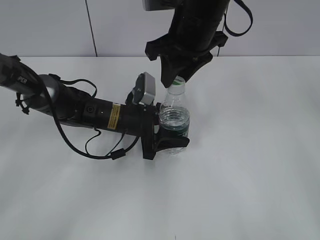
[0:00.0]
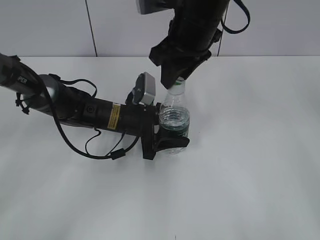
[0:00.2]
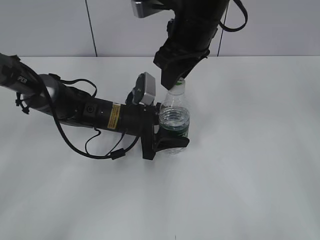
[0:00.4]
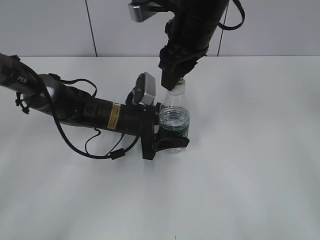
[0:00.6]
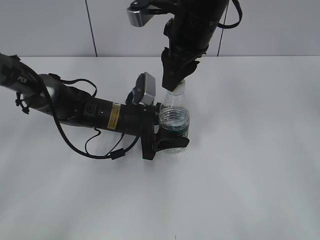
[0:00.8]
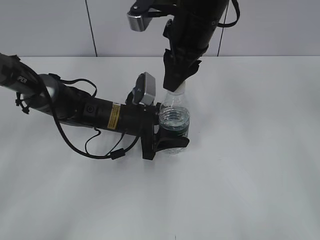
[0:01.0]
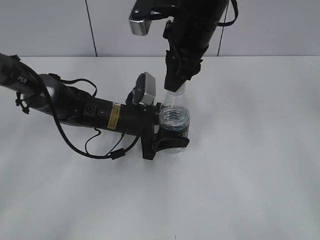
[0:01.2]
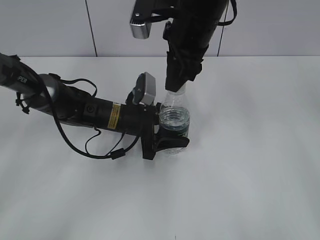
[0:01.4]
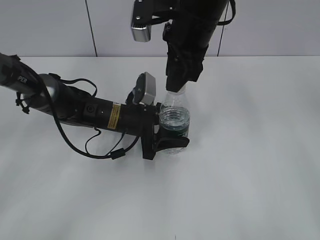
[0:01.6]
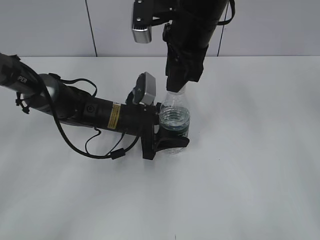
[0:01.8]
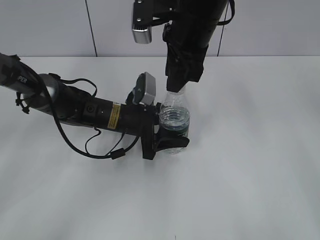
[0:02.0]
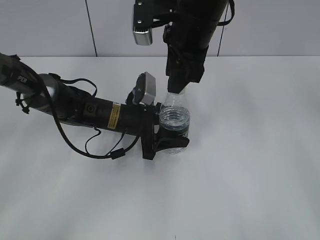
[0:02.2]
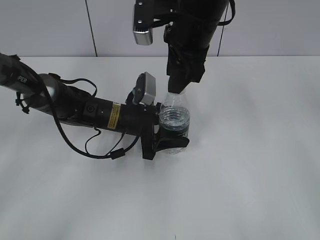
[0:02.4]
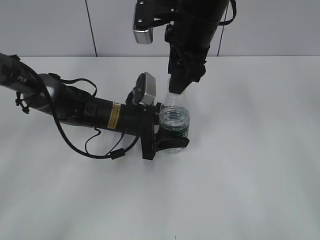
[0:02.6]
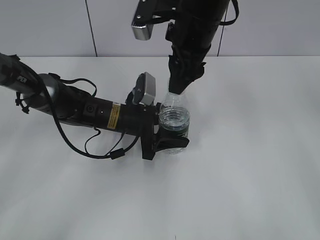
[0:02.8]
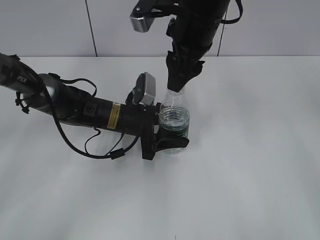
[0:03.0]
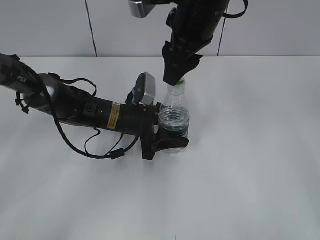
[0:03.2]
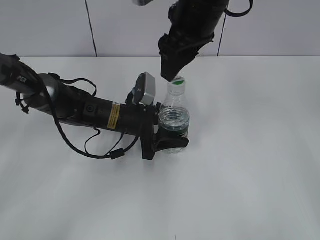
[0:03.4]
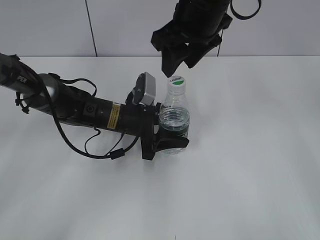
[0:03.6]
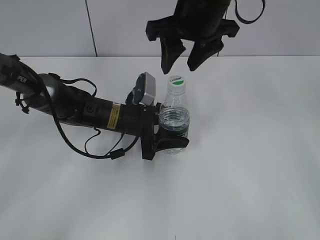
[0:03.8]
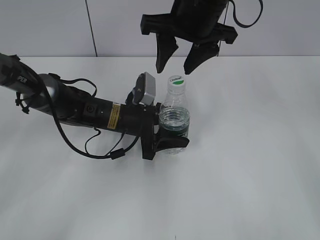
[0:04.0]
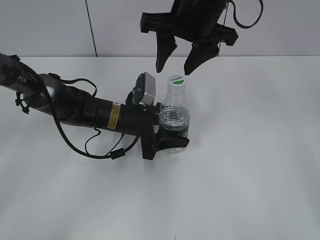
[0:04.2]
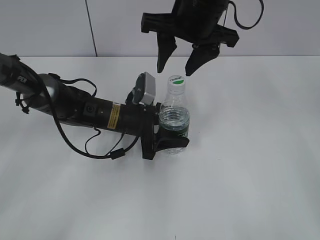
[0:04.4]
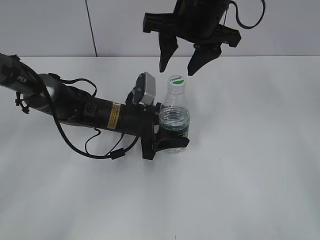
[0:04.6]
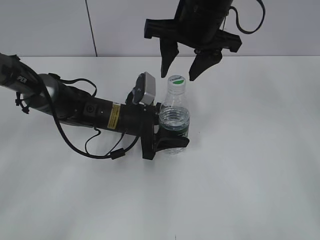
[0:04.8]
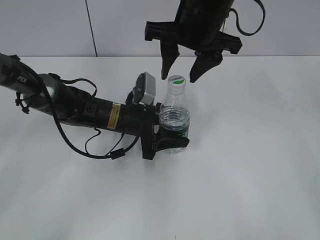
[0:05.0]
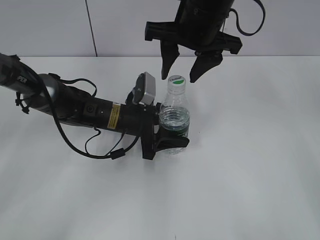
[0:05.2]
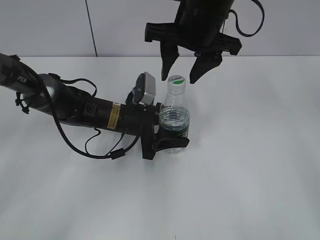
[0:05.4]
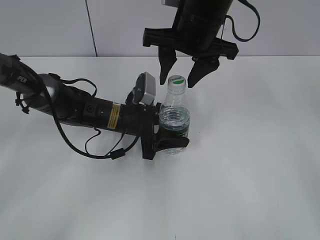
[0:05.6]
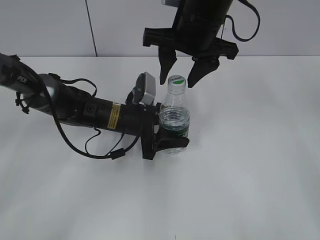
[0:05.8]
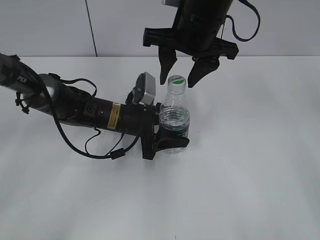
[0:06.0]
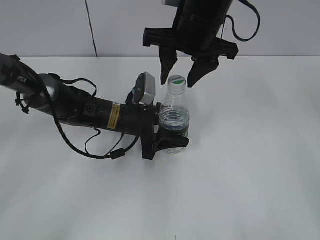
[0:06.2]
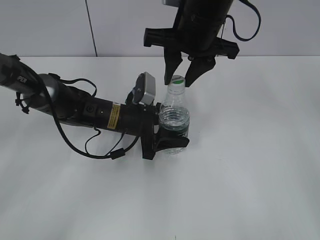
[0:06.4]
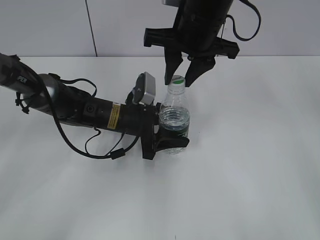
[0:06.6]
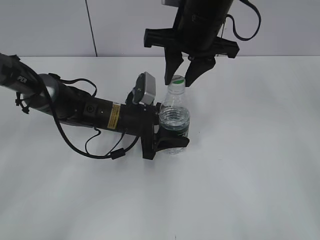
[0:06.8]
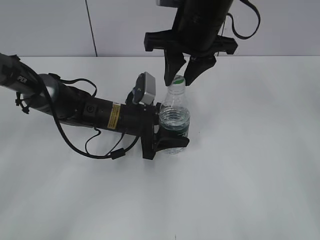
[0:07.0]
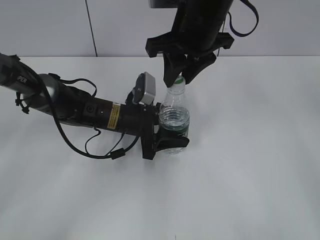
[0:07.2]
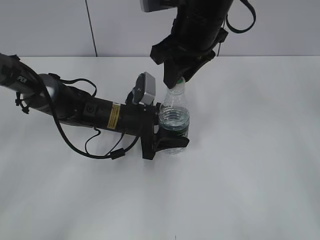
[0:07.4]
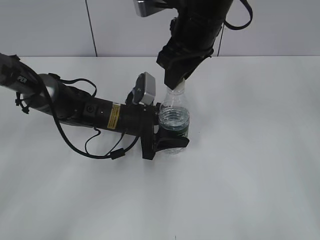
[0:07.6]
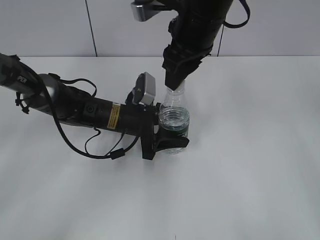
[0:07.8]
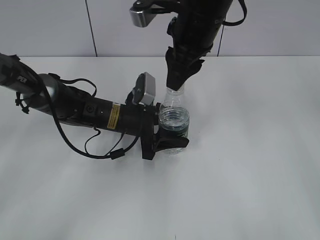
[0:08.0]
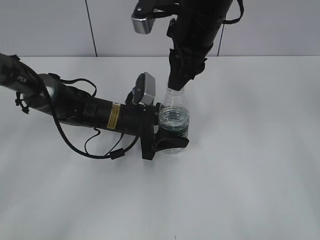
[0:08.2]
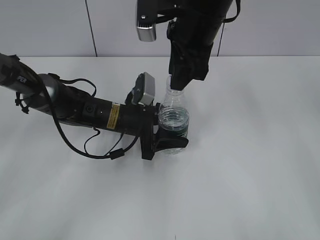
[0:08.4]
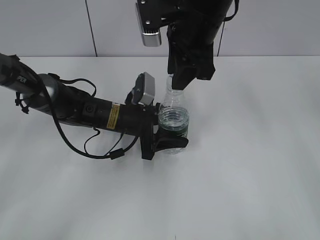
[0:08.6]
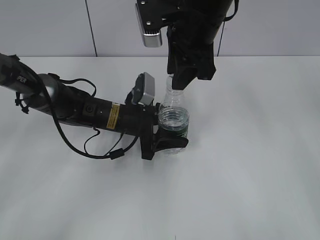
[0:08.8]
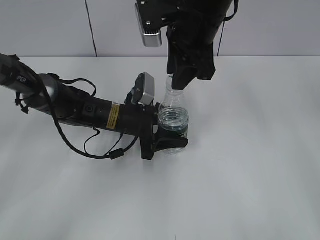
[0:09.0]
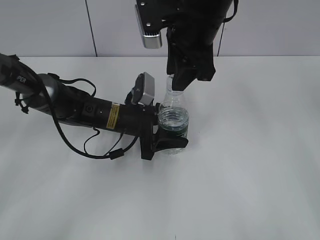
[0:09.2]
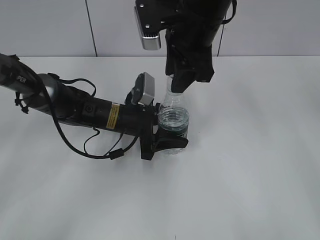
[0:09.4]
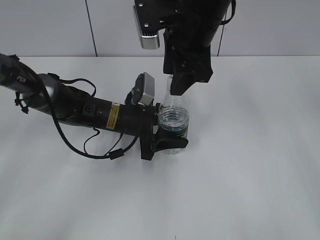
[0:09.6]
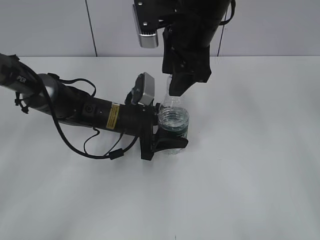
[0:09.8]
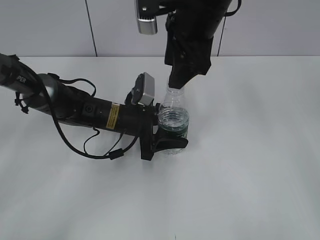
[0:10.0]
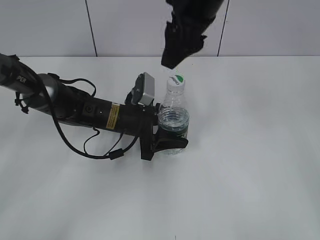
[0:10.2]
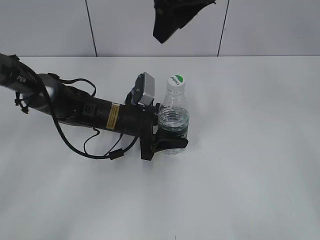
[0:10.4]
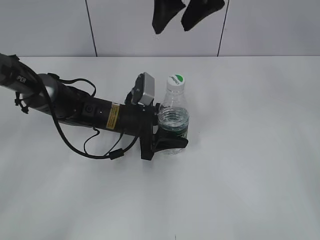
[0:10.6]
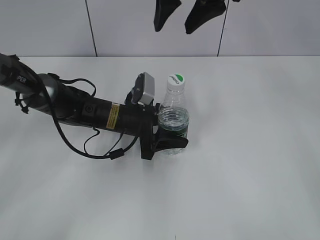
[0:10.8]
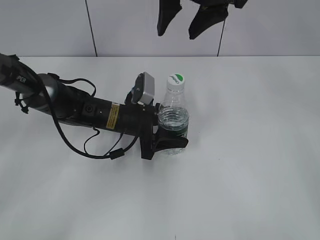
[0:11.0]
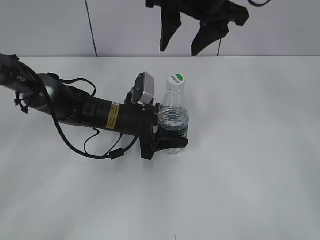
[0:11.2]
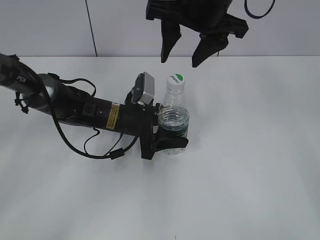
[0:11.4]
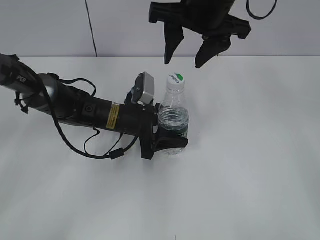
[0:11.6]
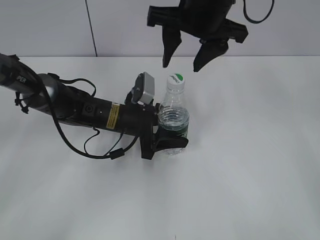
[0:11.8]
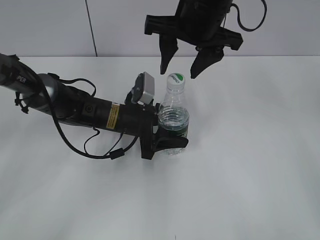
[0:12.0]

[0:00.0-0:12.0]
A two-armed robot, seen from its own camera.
0:01.6 to 0:03.0: The right gripper opens up.
0:04.4 to 0:06.0: The grippers make only small movements.
0:06.0 to 0:07.6: The right gripper closes up.
0:09.0 to 0:10.4: The right gripper moves upward, about 5 cm, and opens its fingers.
0:10.4 to 0:12.0: The right gripper is displaced downward by some 5 cm.

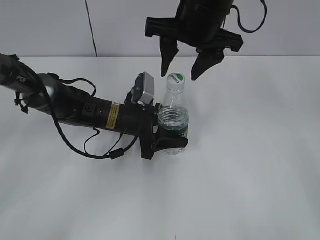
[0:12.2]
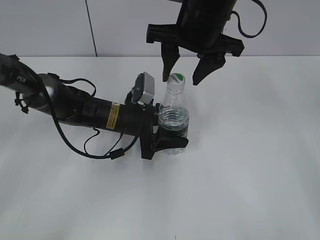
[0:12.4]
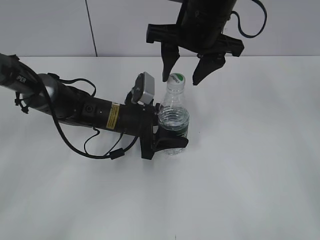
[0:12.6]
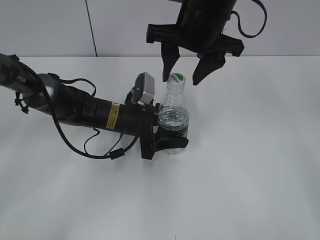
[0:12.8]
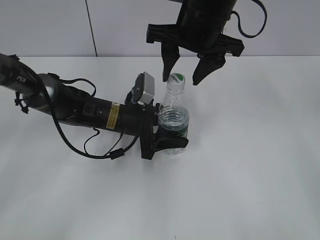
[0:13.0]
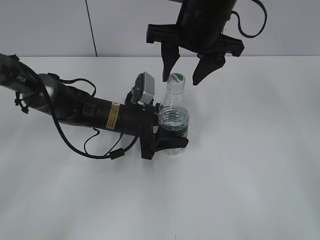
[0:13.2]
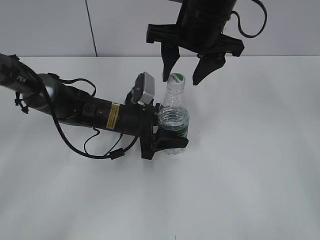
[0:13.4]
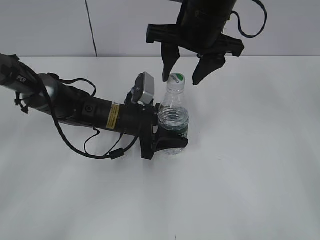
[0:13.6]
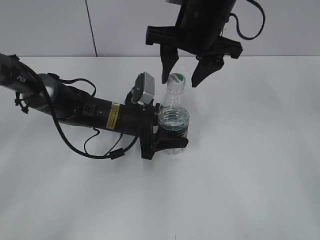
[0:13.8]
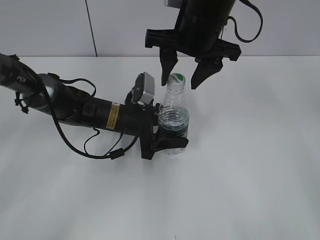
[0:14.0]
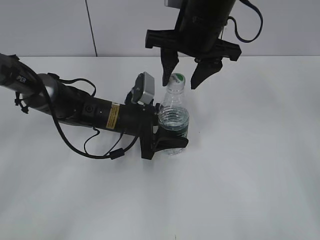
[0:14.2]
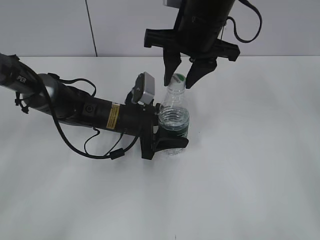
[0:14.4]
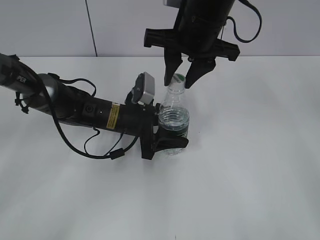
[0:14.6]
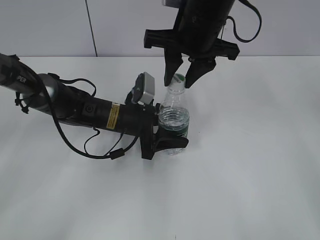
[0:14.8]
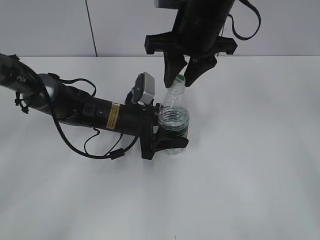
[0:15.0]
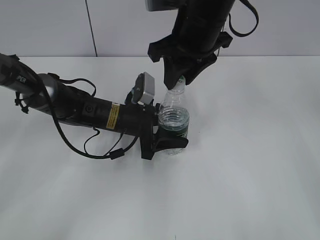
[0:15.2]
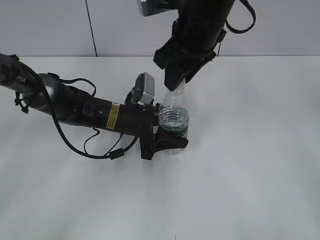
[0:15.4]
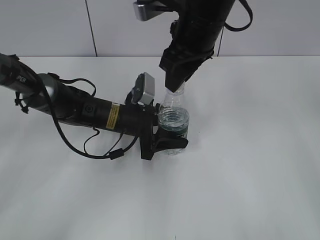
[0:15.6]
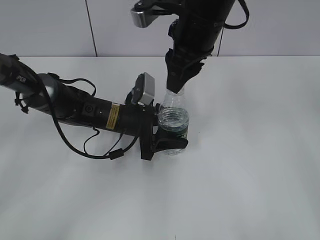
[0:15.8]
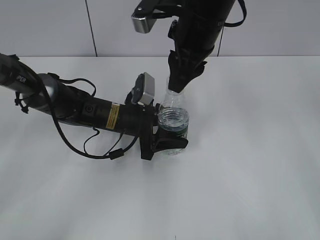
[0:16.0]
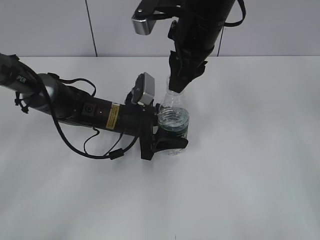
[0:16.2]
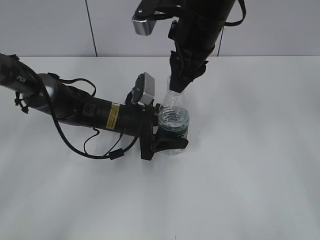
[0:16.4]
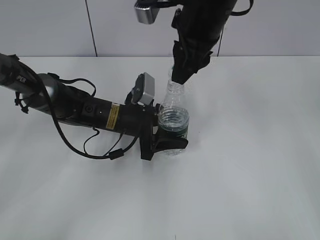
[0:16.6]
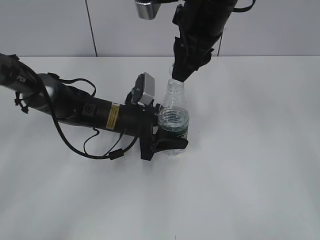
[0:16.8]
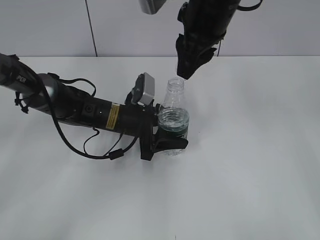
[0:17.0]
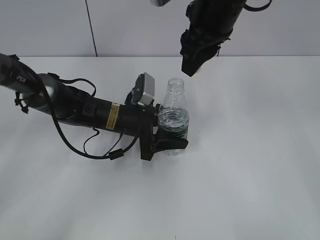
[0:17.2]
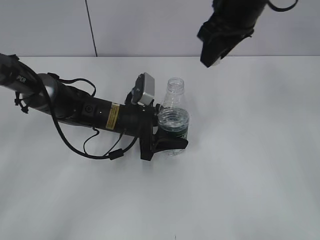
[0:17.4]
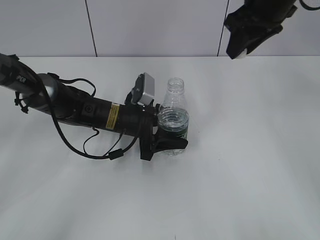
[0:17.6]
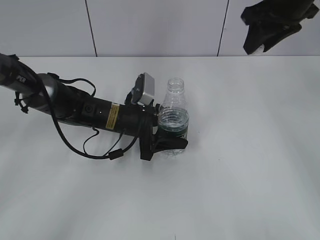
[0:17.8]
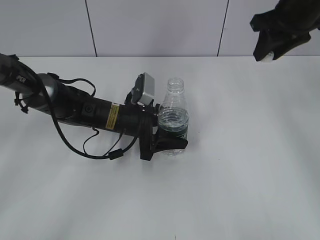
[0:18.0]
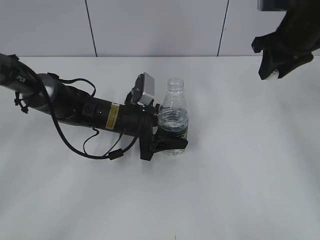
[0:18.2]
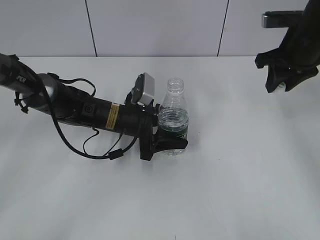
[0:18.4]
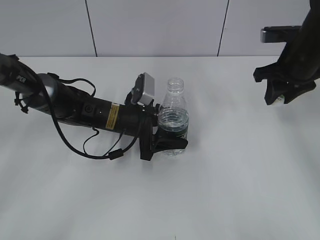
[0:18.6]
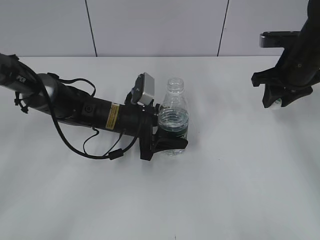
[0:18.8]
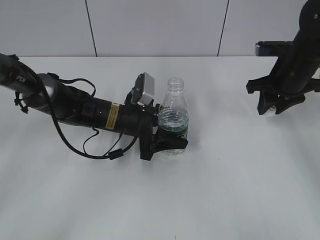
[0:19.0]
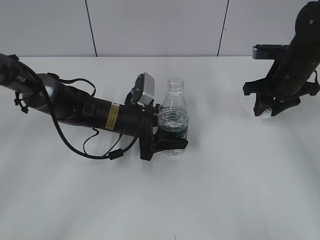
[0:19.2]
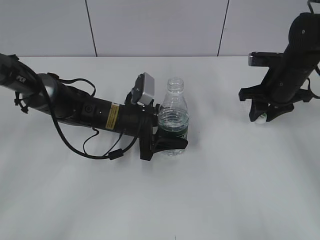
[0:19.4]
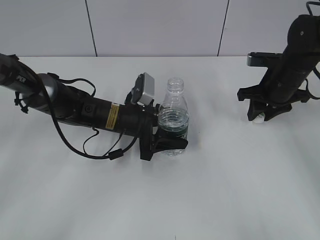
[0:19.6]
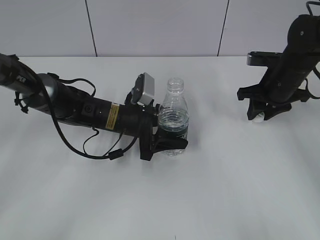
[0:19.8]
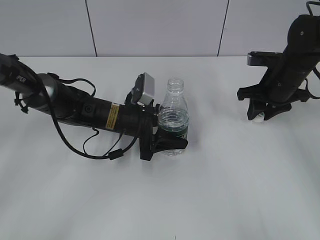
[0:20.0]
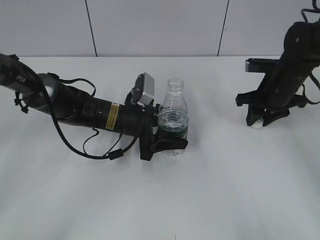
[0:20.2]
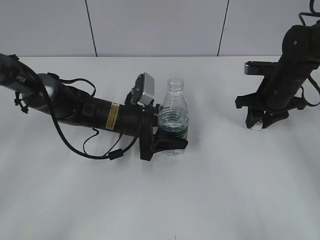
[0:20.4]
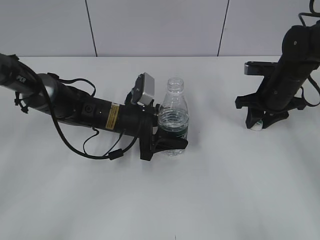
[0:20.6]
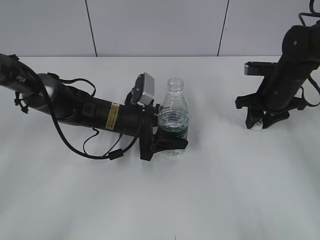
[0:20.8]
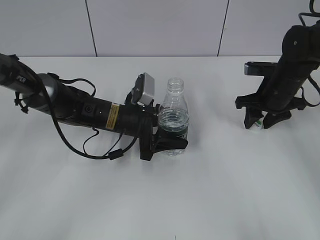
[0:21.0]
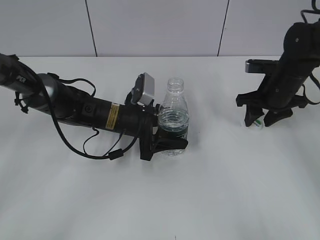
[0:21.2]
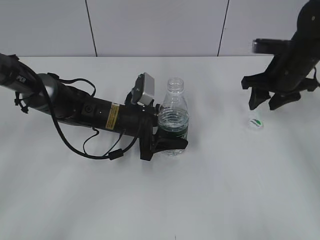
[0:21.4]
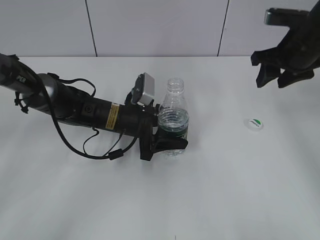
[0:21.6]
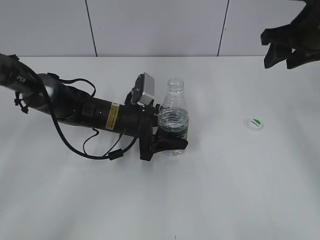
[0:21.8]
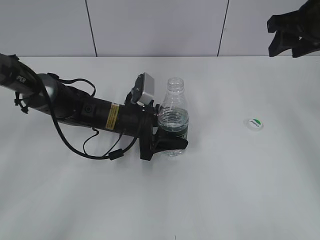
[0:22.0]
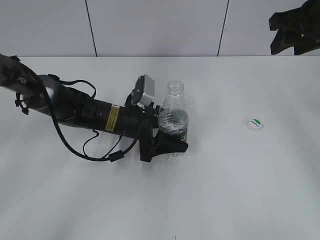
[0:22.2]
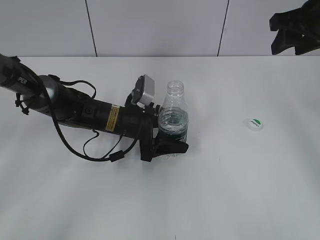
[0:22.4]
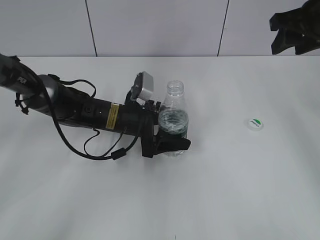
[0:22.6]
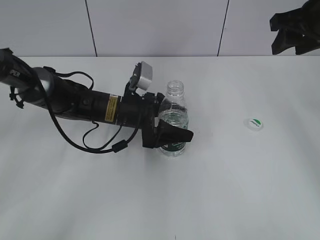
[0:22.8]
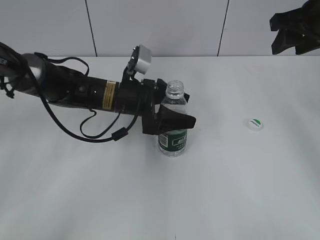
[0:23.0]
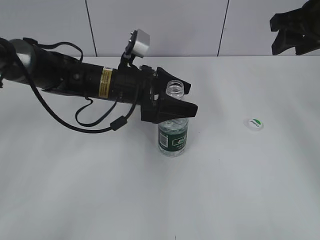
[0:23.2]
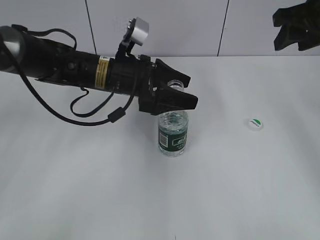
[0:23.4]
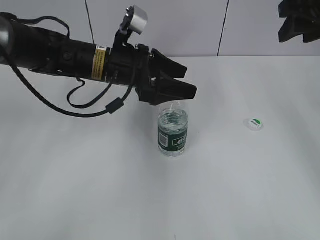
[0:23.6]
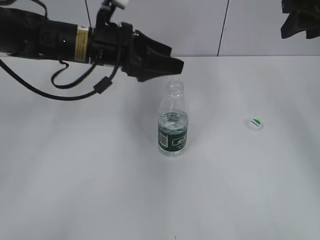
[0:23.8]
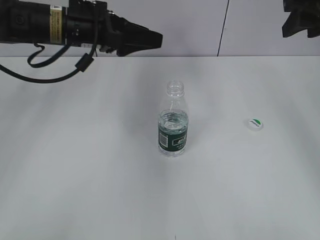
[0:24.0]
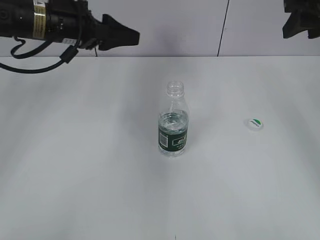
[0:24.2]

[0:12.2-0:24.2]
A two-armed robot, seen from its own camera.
Step, 0:12.2 to 0:16.8: Unscrew the bottle cap with the right gripper while holding the bottle with the left gripper.
Step, 0:17.2 to 0:21.2: Place the bottle cap on the table with the right gripper.
Step, 0:21.4 to 0:23.0: Place the bottle on the table with the left gripper.
0:12.2 to 0:13.8: Neither gripper changes place.
0:13.8 to 0:15.2: The right gripper closes.
0:16.6 to 0:18.2: The right gripper moves to the right, about 15 cm.
0:18.2 to 0:19.8: The right gripper travels downward by about 10 cm.
0:19.8 to 0:21.2: The right gripper opens its fingers.
0:21.2 to 0:22.6: The left gripper opens its fingers; the right gripper shifts roughly 15 cm upward.
0:22.6 to 0:24.2: The left gripper shifts roughly 20 cm upward and to the left.
